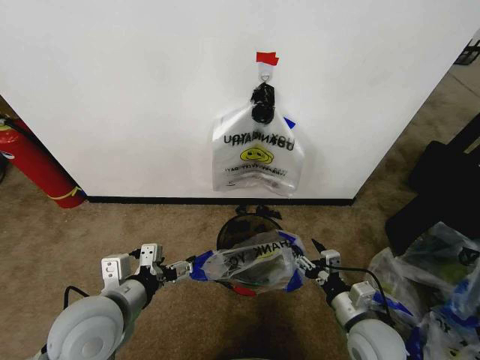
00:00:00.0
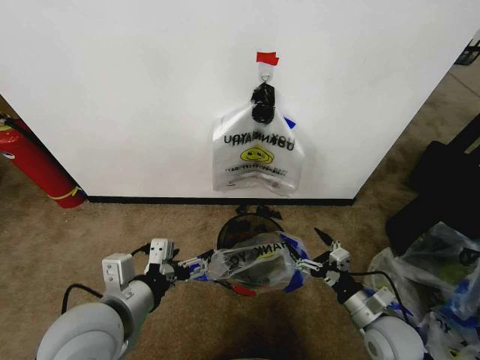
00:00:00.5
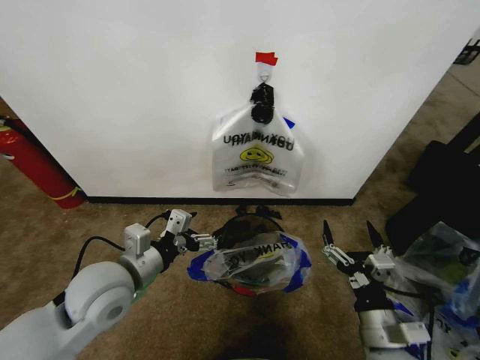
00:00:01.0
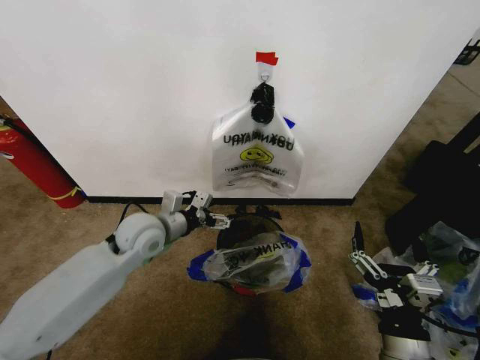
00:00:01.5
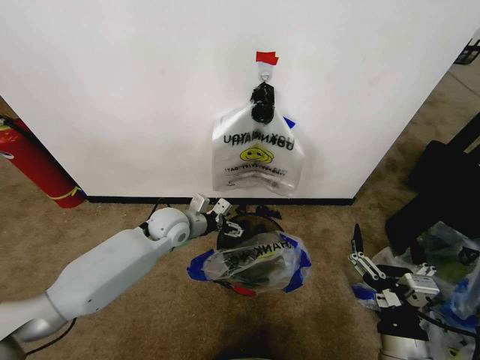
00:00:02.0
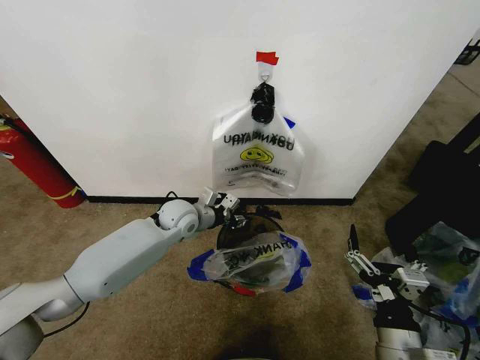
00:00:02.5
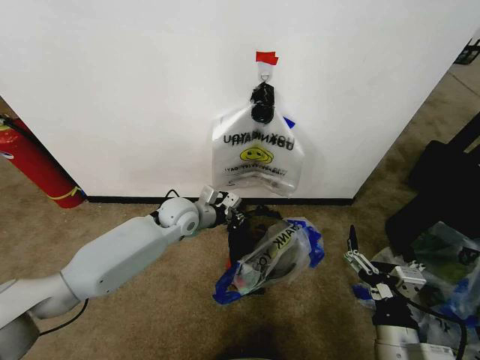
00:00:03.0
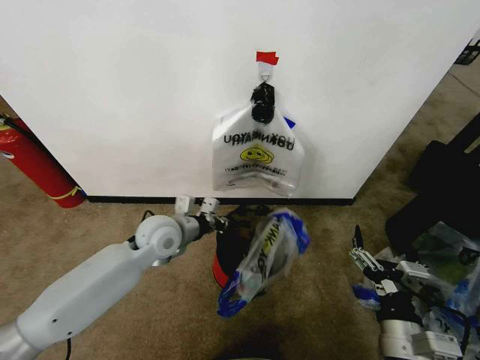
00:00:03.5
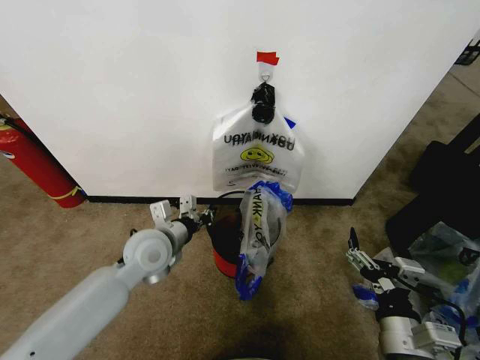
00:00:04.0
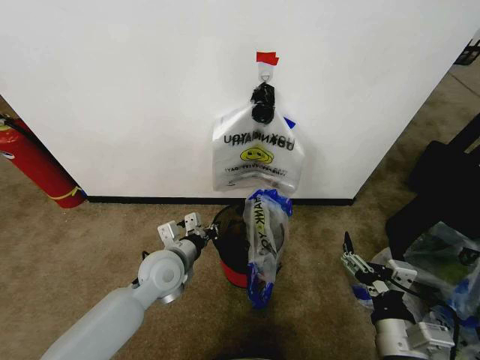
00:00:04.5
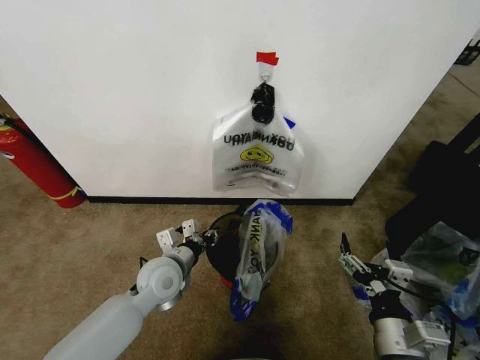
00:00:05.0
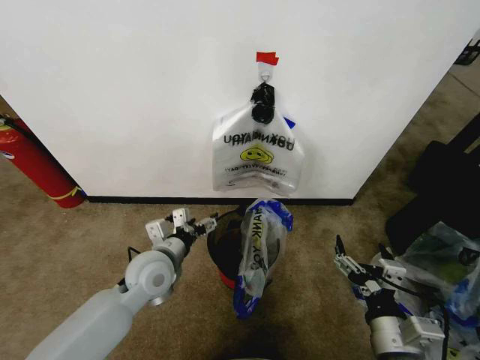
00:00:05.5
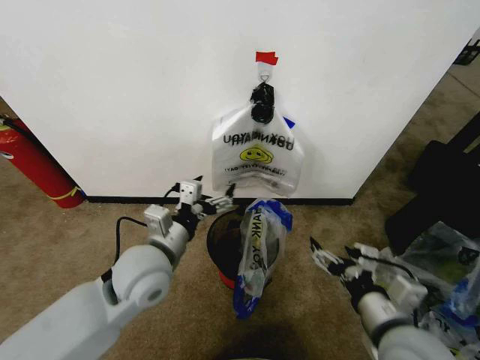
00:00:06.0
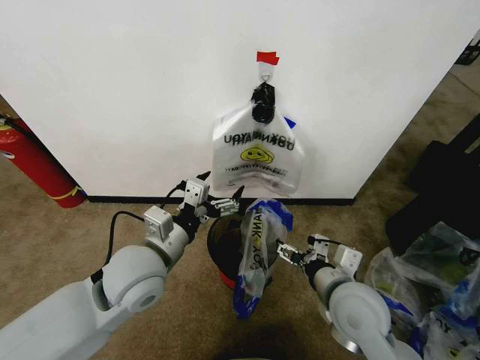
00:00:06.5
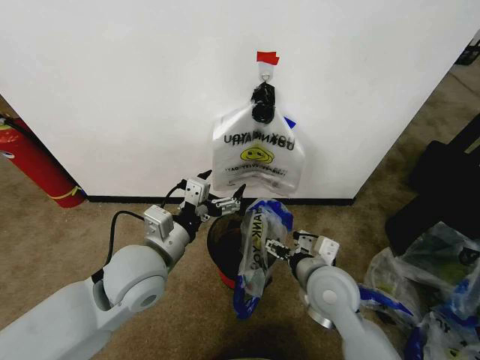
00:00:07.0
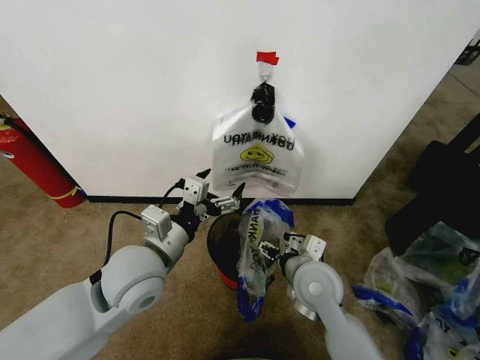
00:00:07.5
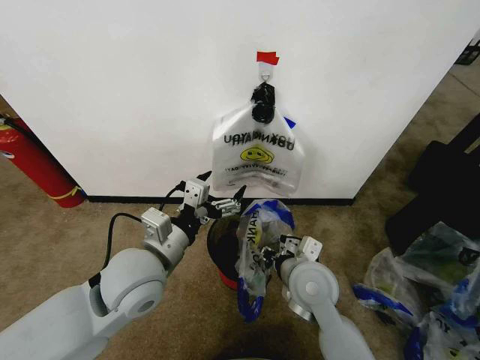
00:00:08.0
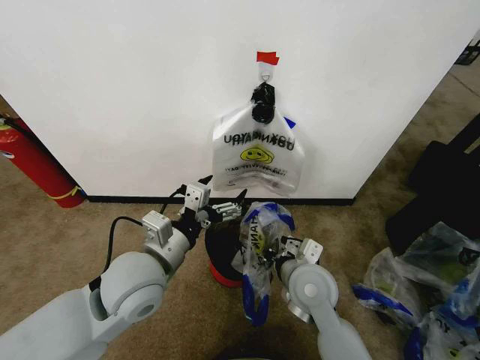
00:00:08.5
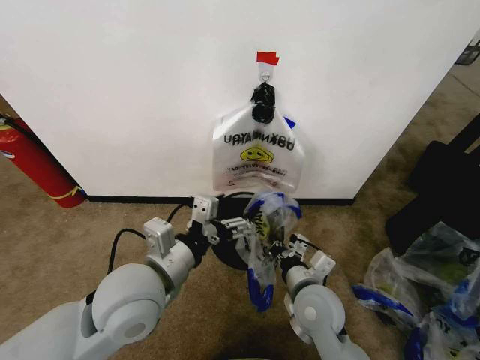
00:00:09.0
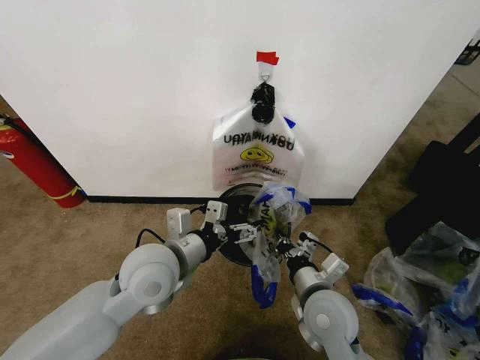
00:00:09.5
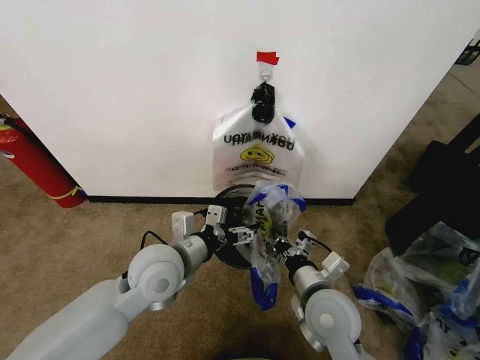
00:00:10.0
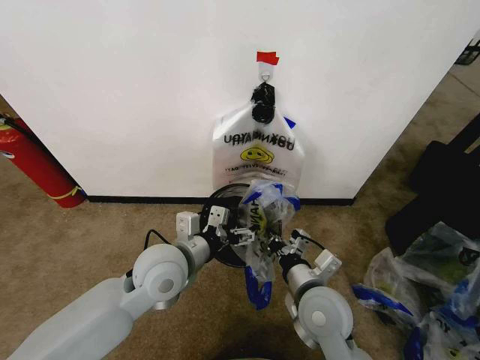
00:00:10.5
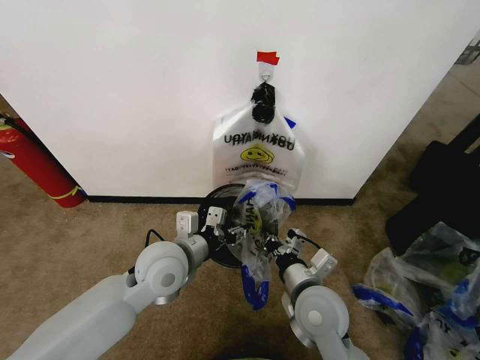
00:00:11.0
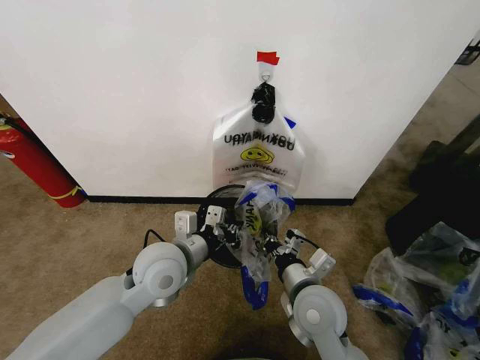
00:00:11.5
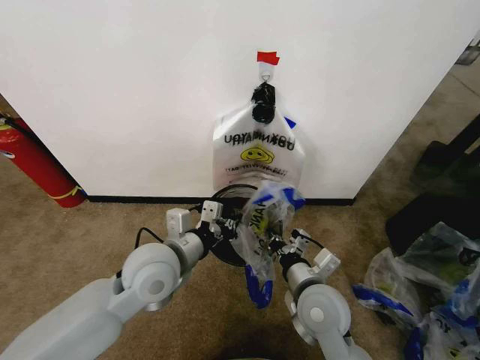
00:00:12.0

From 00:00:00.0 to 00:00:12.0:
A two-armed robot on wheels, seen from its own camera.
Task of the whole recording: Pick up the garbage bag from the wall and place it over the trash bin.
From 00:00:00.0 to 00:00:02.0: The right gripper is displaced backward and upward by roughly 15 cm. Meanwhile the left gripper goes roughly 25 cm forward.
From 00:00:02.0 to 00:00:04.0: The left gripper goes approximately 10 cm backward, and closes.
From 00:00:04.0 to 00:00:06.0: The left gripper is displaced backward by some 5 cm, and opens its fingers; the right gripper changes place by some 5 cm.
From 00:00:06.0 to 00:00:08.0: The right gripper is displaced forward and to the left by about 15 cm, and closes up.
From 00:00:08.0 to 00:00:10.0: The right gripper shifts about 5 cm backward, and closes up.
From 00:00:10.0 to 00:00:12.0: The left gripper closes up.

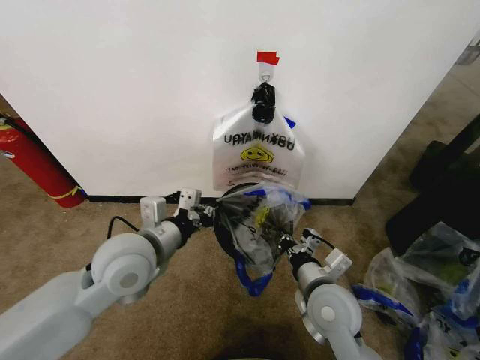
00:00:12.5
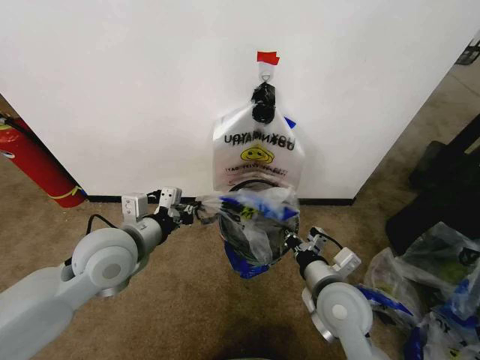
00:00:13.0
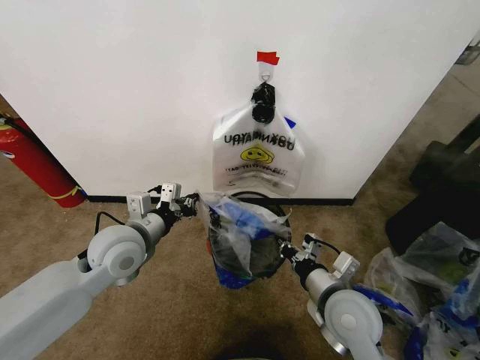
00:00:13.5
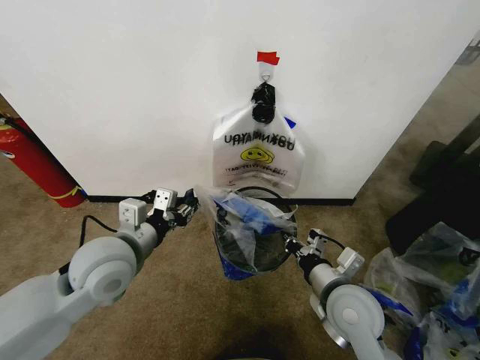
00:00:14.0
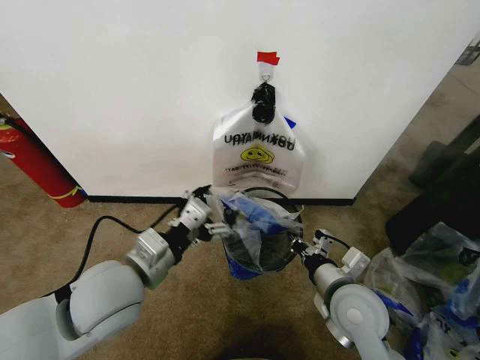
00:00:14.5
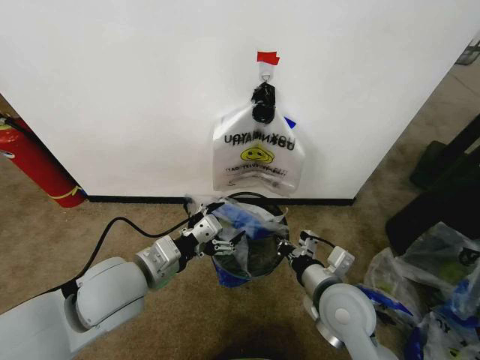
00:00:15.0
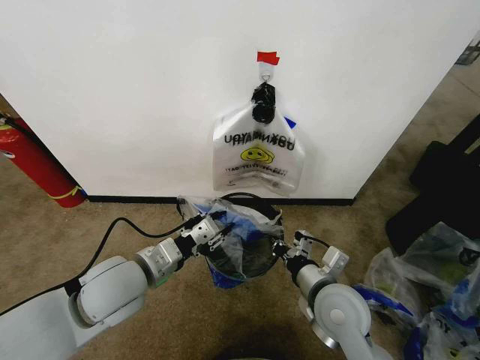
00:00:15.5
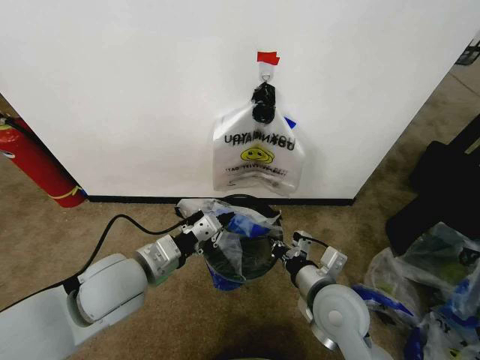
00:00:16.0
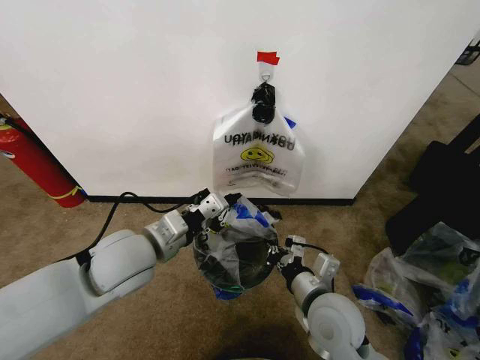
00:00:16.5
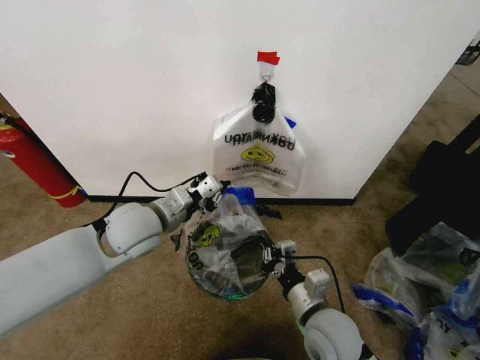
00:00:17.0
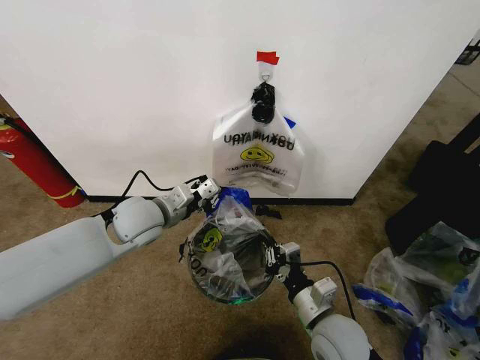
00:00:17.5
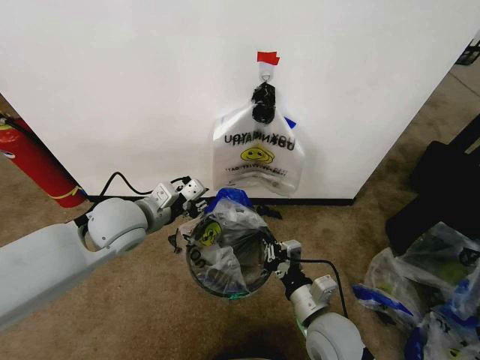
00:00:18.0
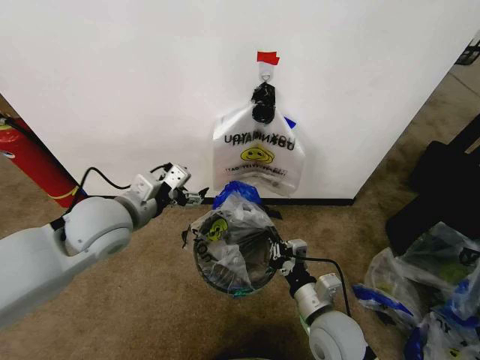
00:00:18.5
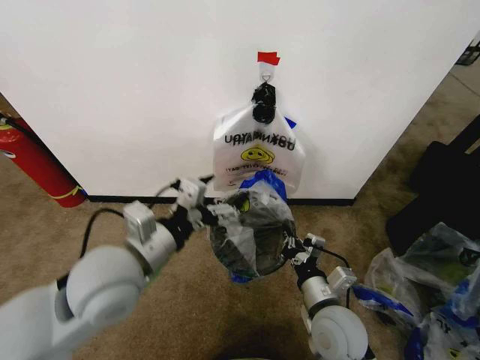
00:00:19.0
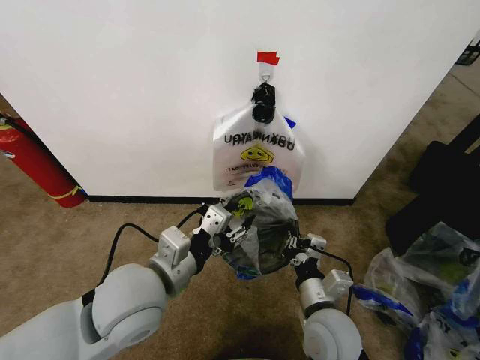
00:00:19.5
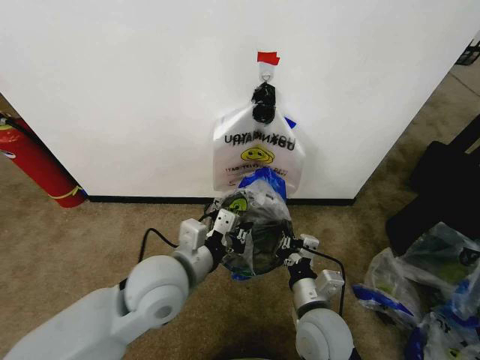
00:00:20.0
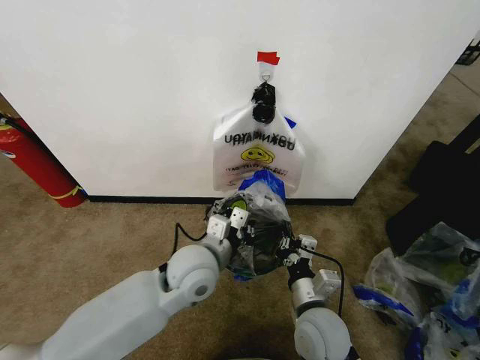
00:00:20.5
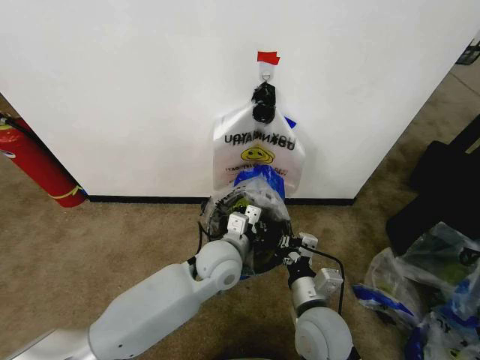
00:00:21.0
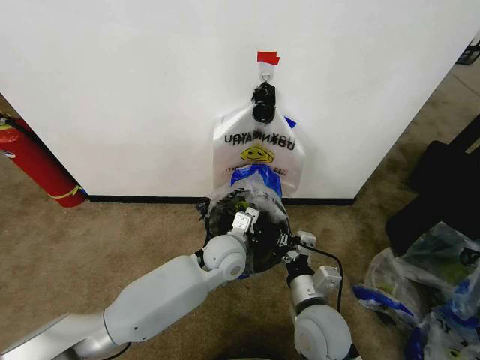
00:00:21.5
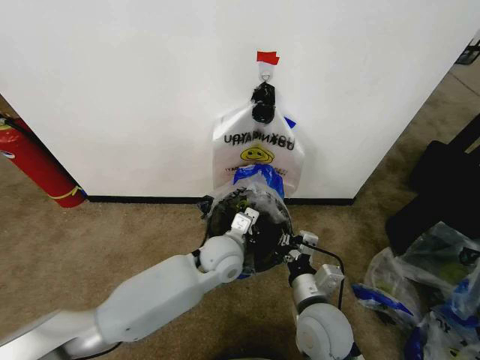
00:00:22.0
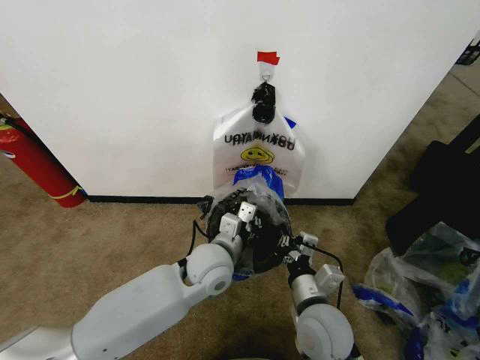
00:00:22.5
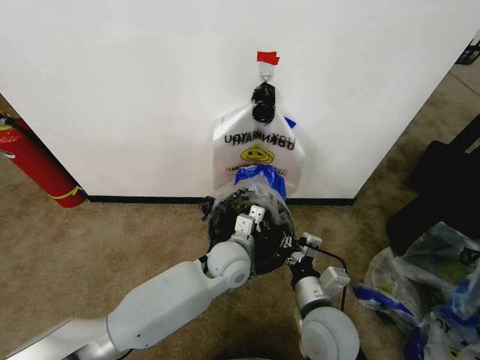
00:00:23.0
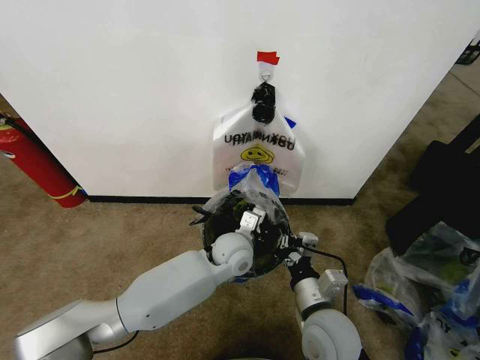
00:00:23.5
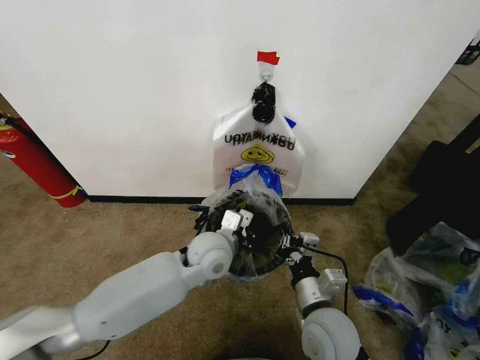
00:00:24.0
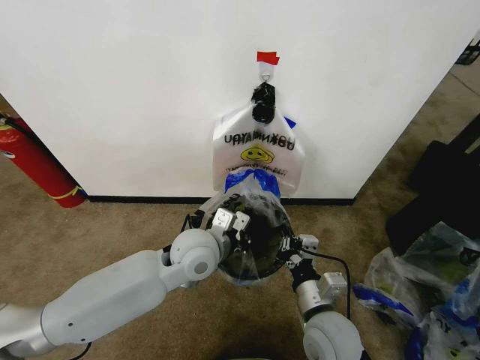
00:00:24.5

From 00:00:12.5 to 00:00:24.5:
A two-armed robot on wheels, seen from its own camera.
Task of the whole recording: Pick up the garbage bag from the wall and place it over the trash bin.
From 00:00:12.5 to 00:00:14.5: The left gripper travels backward by about 5 cm, and opens.
From 00:00:14.5 to 00:00:16.5: The left gripper is displaced forward by some 5 cm, and closes up.
From 00:00:16.5 to 00:00:18.5: The left gripper shifts by approximately 5 cm, and opens up. The right gripper changes place by about 5 cm.
From 00:00:18.5 to 00:00:20.5: The left gripper shifts about 20 cm to the right and downward, and closes.

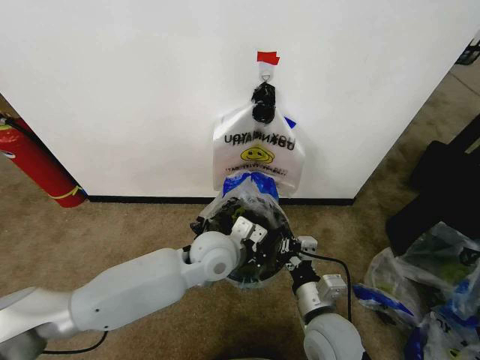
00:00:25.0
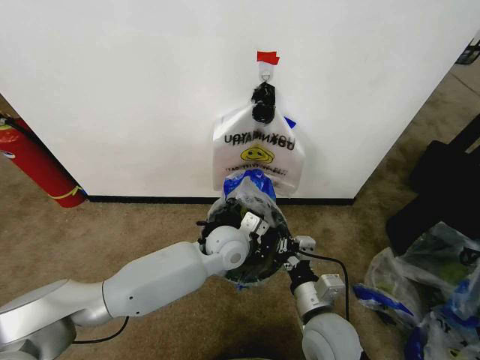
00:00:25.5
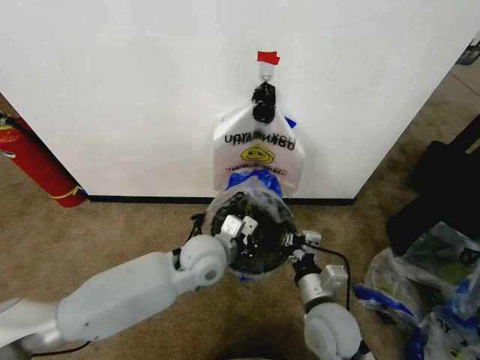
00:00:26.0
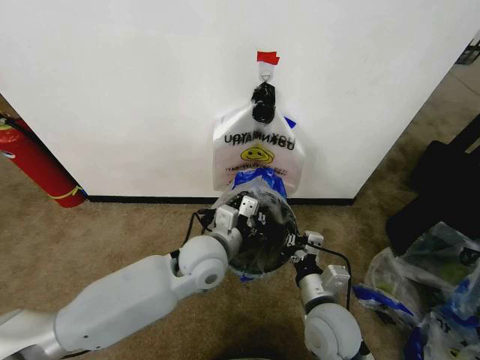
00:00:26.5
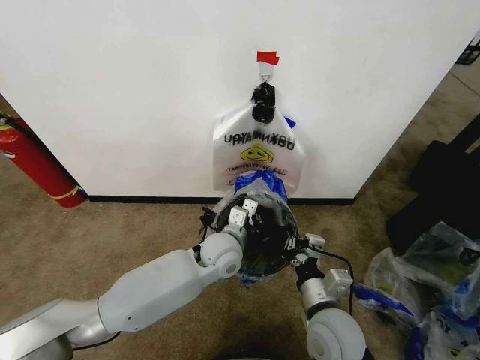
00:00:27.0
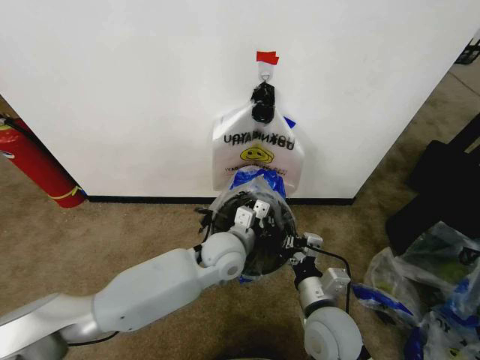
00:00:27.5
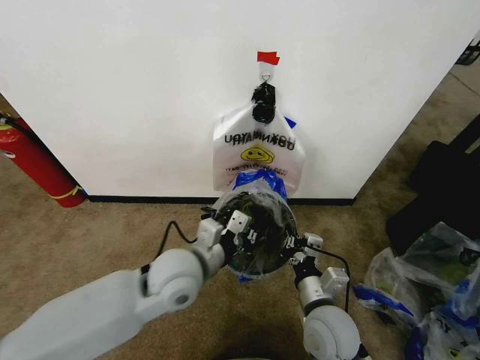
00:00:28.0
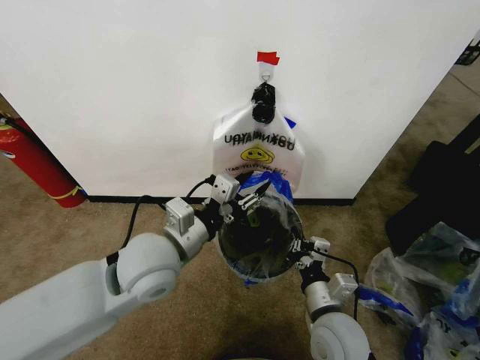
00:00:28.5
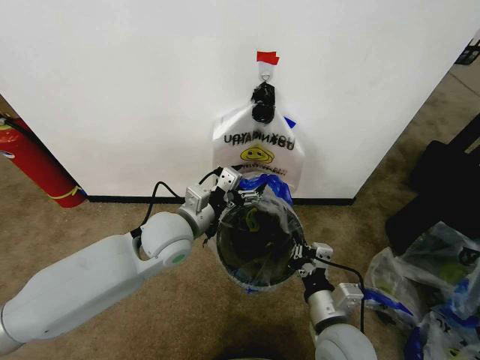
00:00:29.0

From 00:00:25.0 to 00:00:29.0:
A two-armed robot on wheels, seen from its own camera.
Task of the whole recording: Pick up the garbage bag from the wall and place it over the trash bin.
From 00:00:25.0 to 00:00:27.0: The left gripper swings forward and backward, roughly 5 cm each way, with 2 reversals.
From 00:00:27.0 to 00:00:29.0: The left gripper travels upward and to the left by about 15 cm, and opens up.
